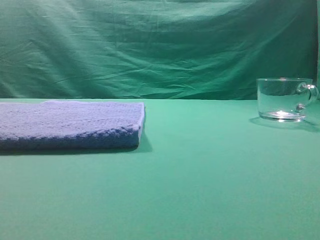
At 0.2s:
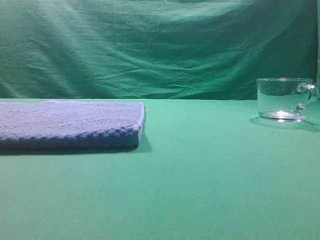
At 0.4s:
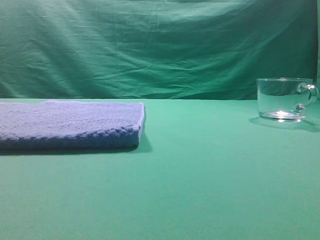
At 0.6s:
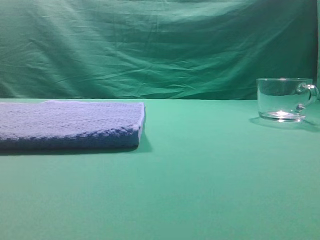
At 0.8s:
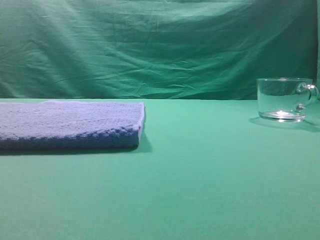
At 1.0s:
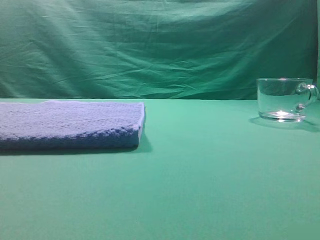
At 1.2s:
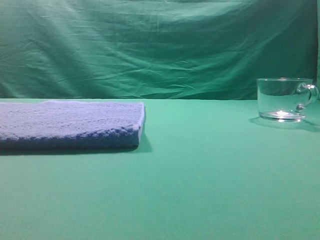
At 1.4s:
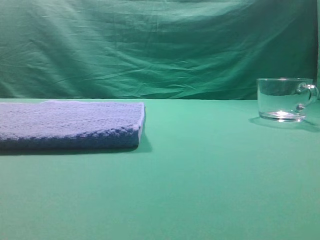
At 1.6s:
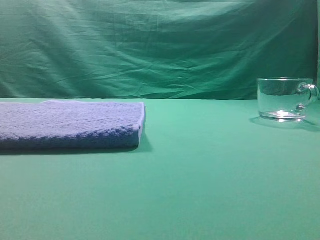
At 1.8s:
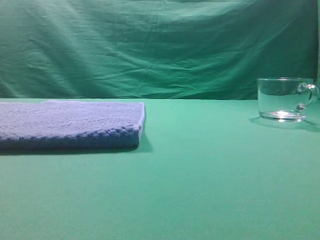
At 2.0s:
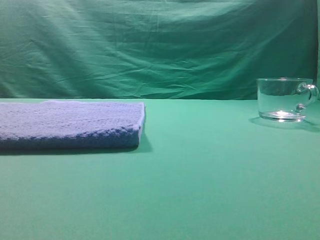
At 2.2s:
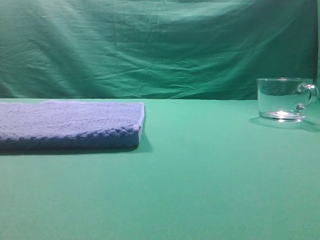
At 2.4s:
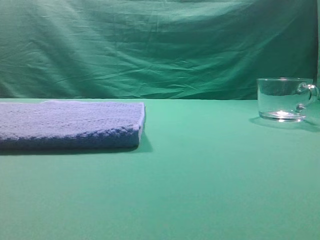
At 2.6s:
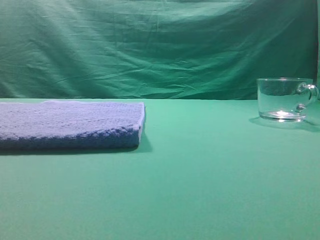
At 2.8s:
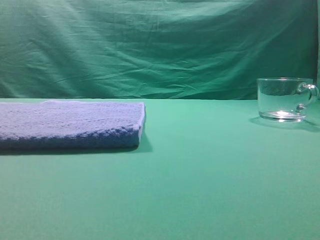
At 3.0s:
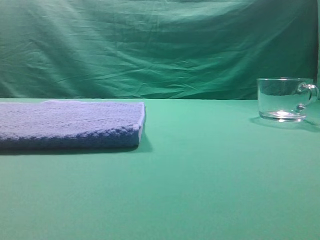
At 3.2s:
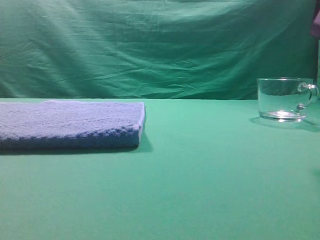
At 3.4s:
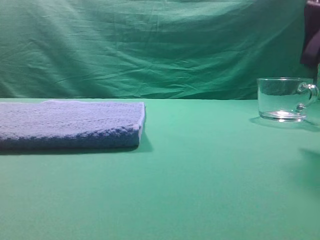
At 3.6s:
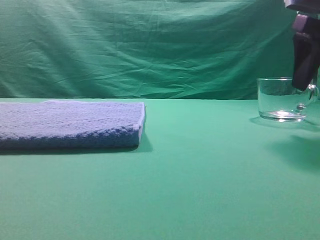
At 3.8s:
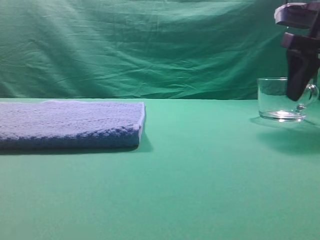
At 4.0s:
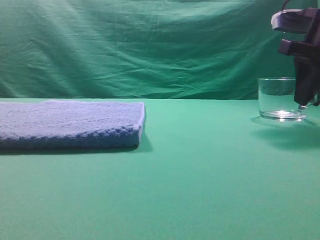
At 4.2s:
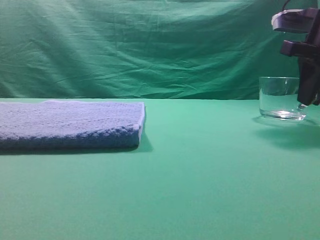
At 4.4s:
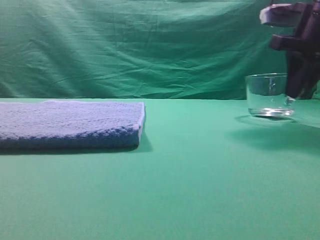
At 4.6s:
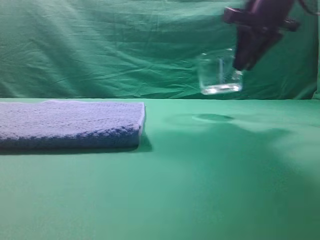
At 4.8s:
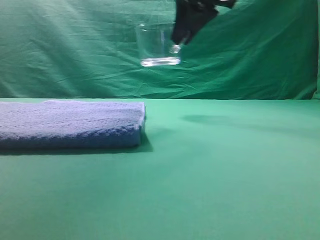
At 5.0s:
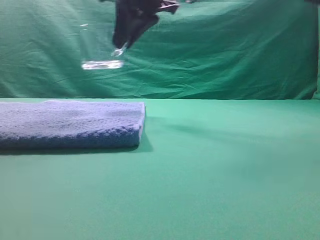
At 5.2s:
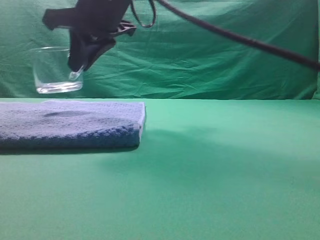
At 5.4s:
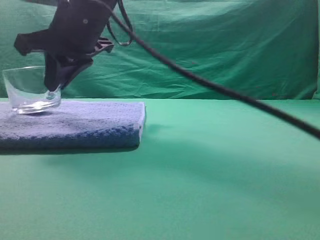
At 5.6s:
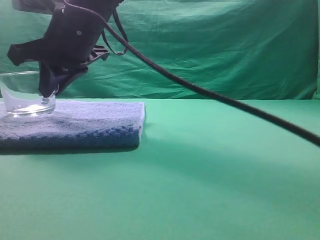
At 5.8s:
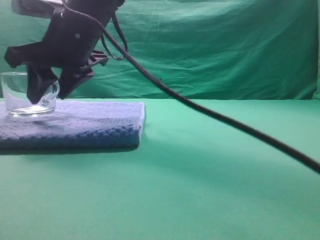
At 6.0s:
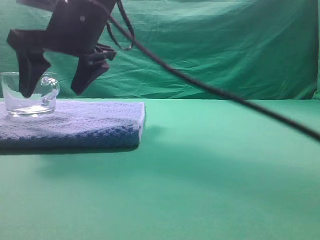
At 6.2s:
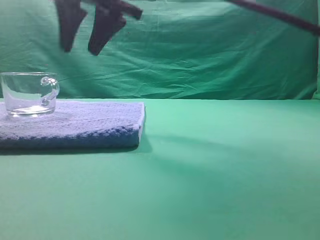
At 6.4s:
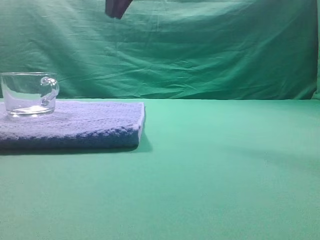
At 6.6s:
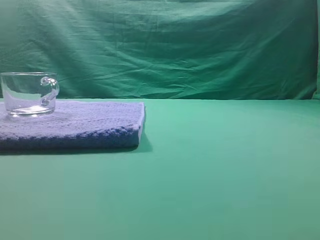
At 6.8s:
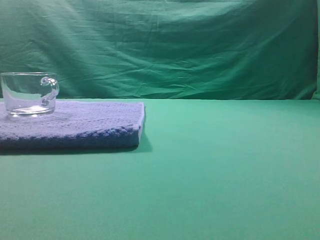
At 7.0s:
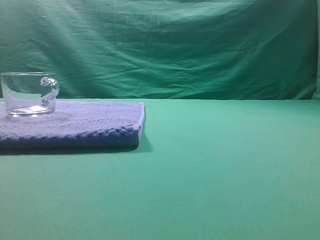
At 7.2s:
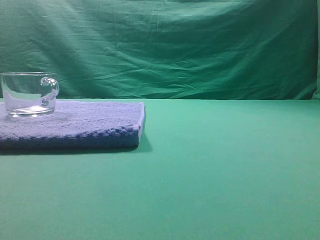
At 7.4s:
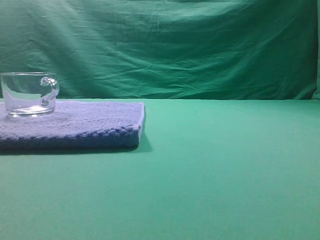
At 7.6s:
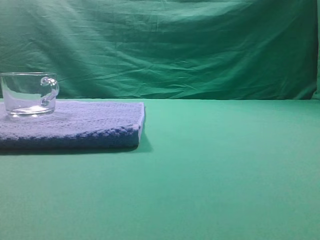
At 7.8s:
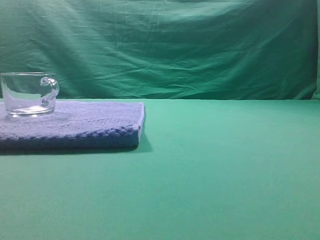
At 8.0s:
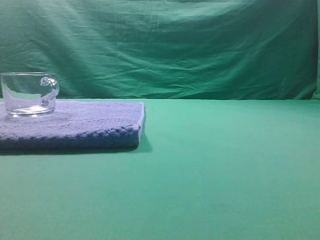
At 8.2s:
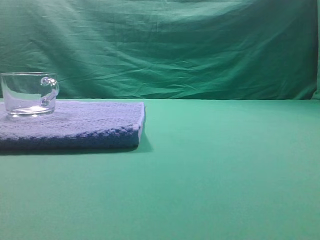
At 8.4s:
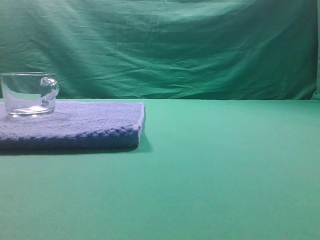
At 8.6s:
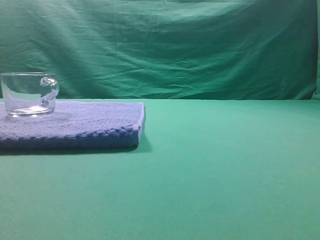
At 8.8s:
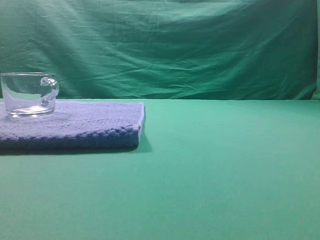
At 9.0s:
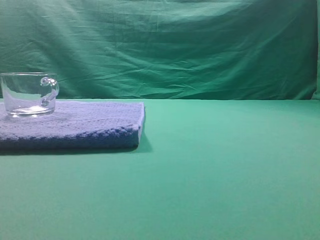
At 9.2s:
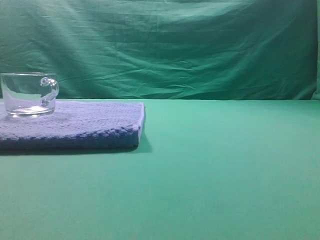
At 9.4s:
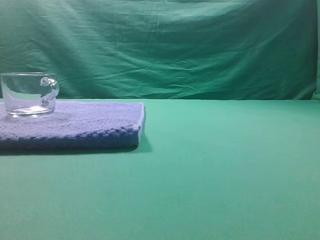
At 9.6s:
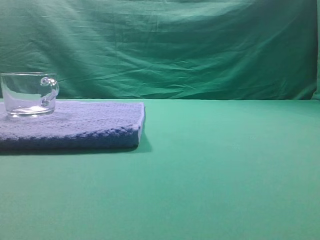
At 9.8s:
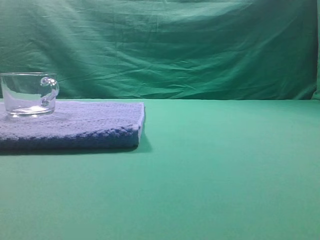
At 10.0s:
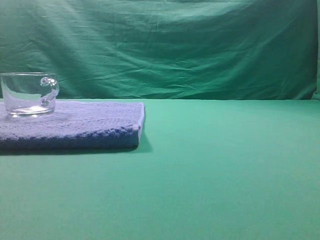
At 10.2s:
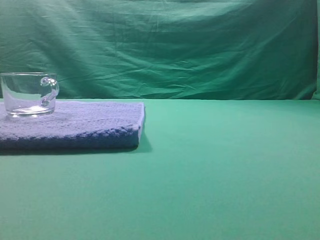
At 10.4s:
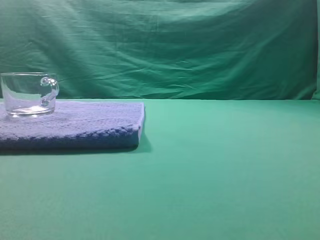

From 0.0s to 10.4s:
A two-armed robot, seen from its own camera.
Task of the whole recording: grasp the transparent glass cup and place it within the blue towel.
Step, from 0.0s to 4.4s: Grasp the transparent glass cup.
Step, from 4.6s to 6.0s: Place the glass cup on the blue zone.
